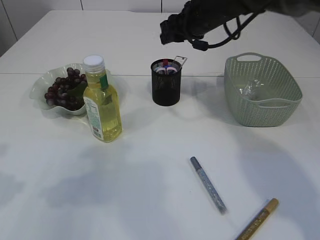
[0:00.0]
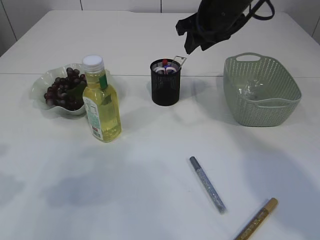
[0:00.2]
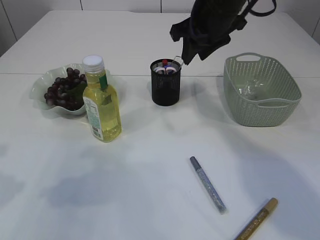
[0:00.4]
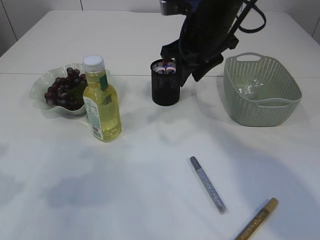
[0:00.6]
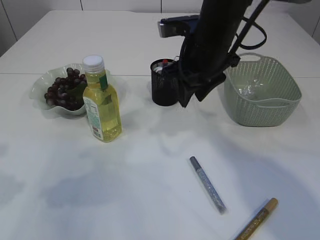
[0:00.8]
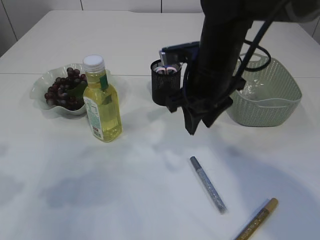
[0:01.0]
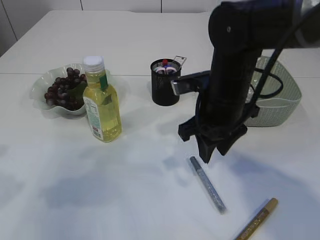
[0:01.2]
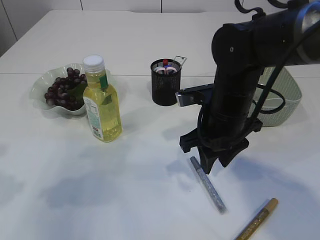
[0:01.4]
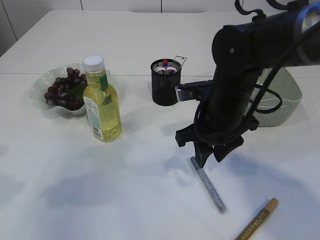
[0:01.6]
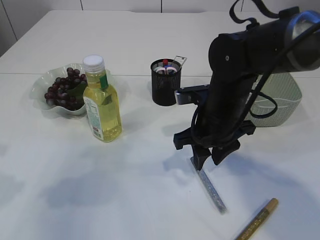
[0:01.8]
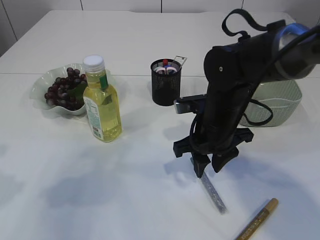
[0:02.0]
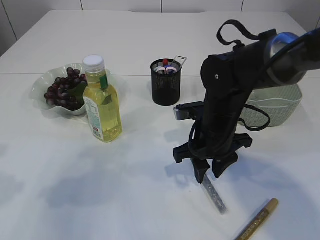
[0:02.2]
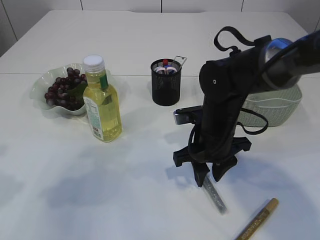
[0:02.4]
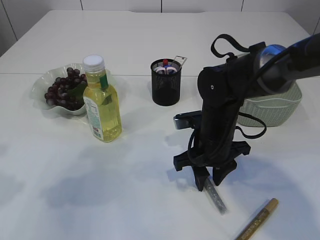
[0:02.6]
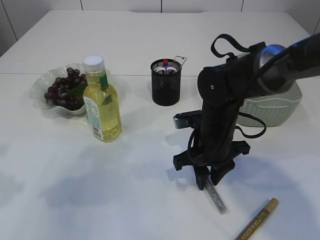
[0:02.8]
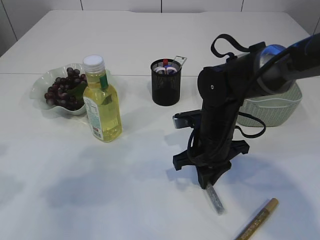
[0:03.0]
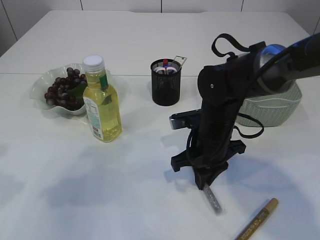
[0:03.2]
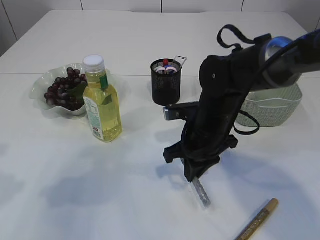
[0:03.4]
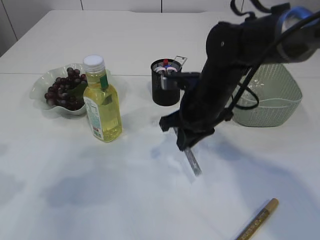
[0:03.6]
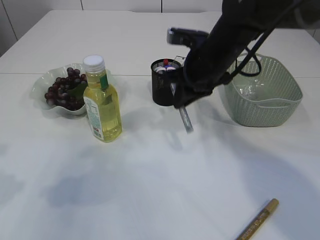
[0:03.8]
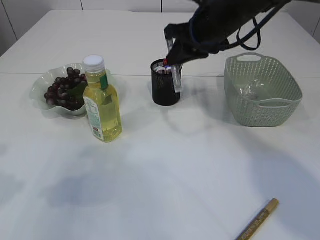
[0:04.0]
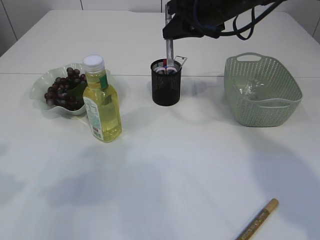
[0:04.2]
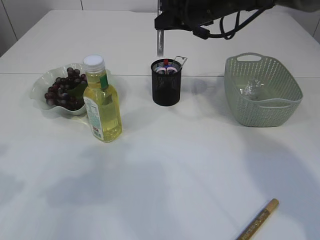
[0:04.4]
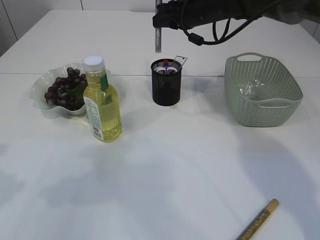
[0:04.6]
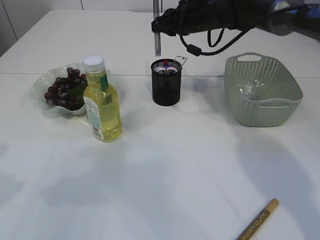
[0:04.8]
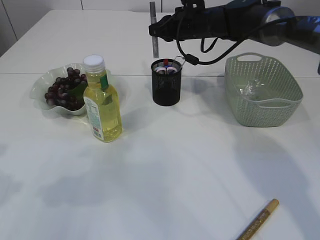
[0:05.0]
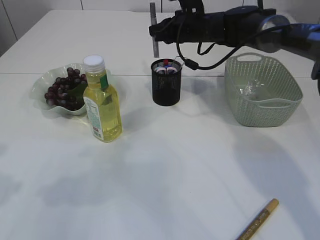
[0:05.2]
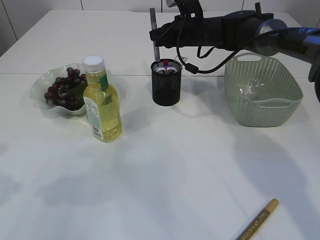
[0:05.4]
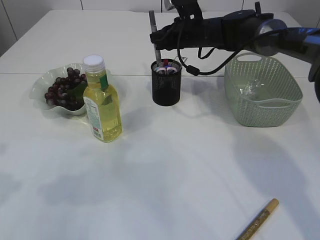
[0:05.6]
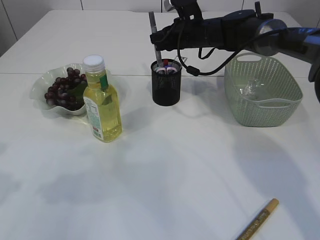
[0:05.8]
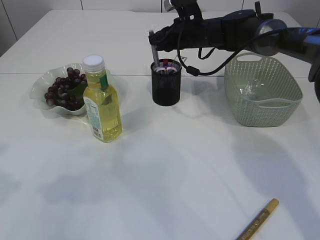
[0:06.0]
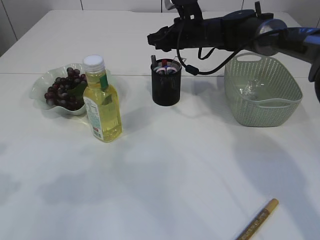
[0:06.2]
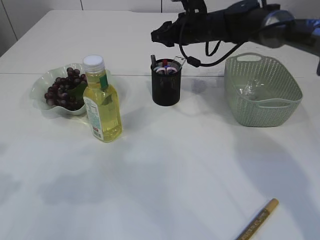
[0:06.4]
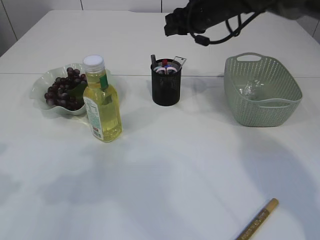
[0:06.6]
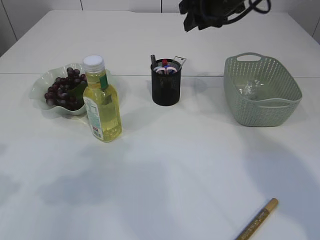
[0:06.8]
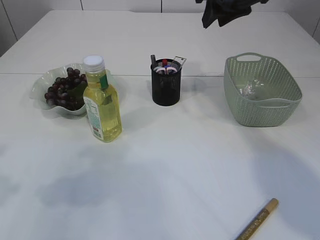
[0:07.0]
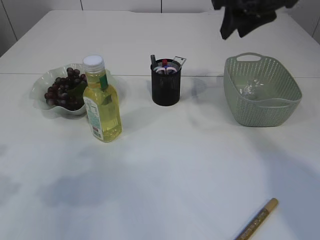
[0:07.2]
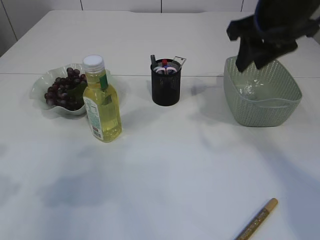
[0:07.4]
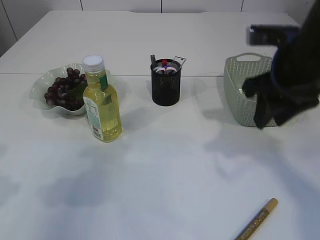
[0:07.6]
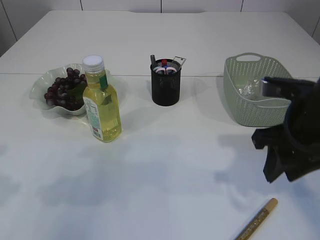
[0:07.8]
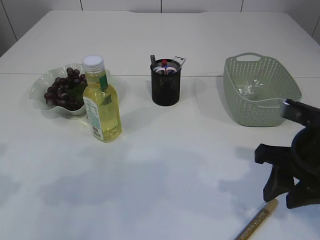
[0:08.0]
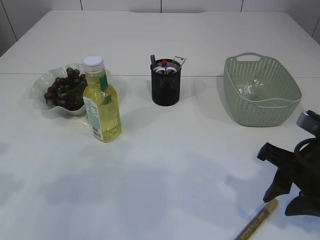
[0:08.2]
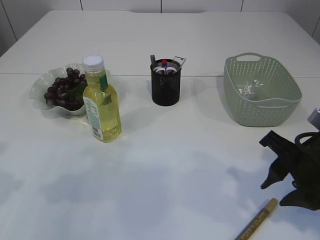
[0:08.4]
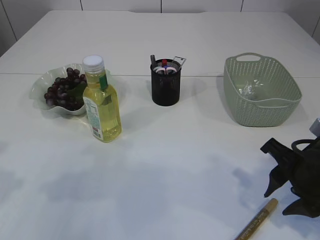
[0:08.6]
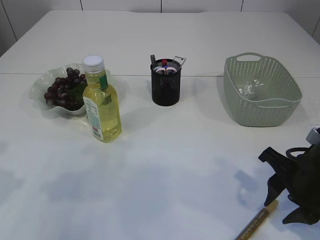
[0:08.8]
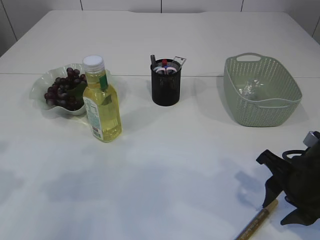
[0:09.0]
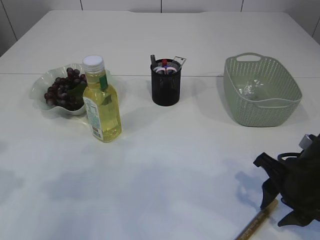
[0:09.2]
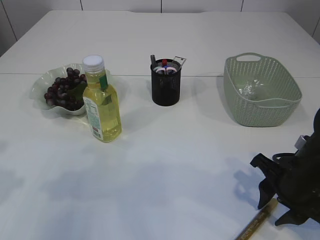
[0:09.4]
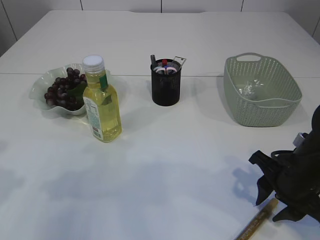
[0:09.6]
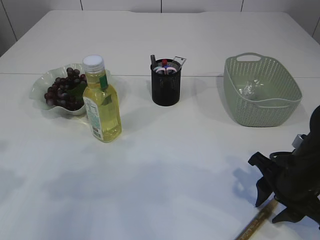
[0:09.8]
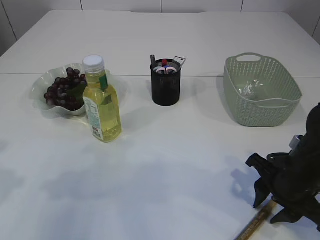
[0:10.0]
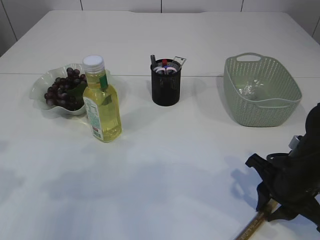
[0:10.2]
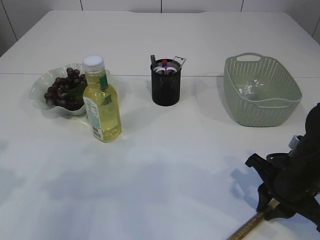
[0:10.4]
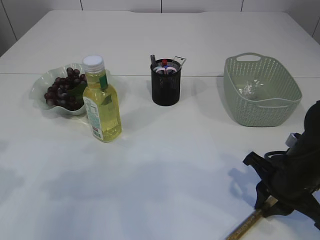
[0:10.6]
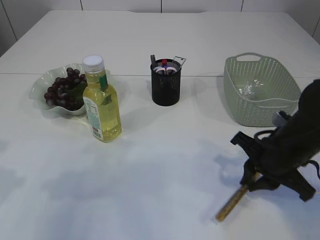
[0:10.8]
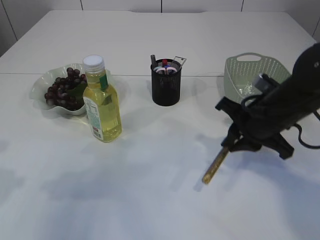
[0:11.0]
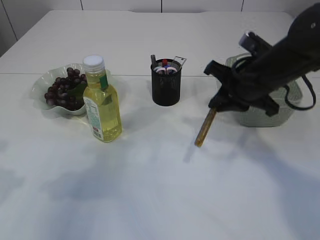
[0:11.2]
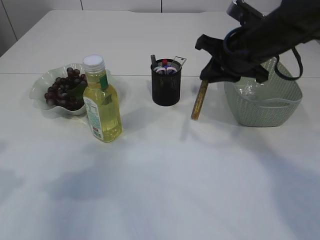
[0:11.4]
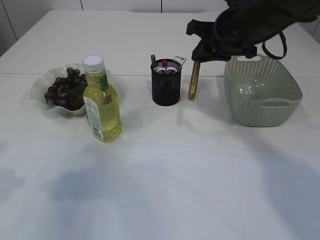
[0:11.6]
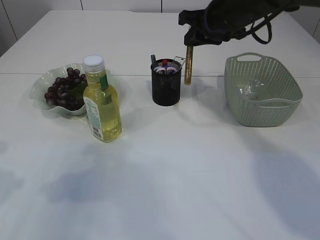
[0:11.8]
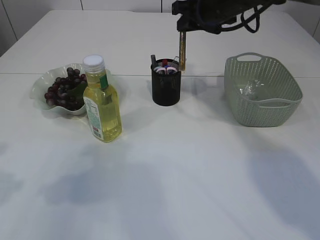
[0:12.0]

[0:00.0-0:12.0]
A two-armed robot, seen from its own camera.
Step, 0:00.0 to 0:03.6: pick up the silver glue.
Step, 0:03.8 to 0:06.6: place the silver glue into the pen holder.
Step, 0:06.8 to 0:11.0: pick up the yellow glue.
0:00.0 to 0:01.6: The right gripper shifts approximately 20 cm backward and downward.
0:01.6 to 0:03.0: The right gripper shifts some 5 cm downward.
0:03.0 to 0:04.4: The right gripper shifts roughly 25 cm upward and forward.
0:04.4 to 0:06.0: The right gripper shifts approximately 10 cm downward and forward.
0:06.0 to 0:07.6: The right gripper is displaced backward by roughly 25 cm.
0:07.6 to 0:09.0: The right gripper heads downward and backward, covering some 15 cm.
0:09.0 to 0:10.4: The grippers move only a little.
0:10.4 to 0:12.0: The right gripper shifts roughly 30 cm forward and upward.

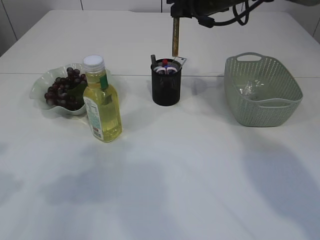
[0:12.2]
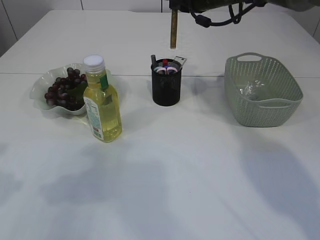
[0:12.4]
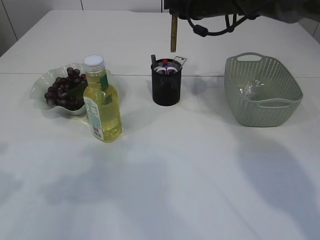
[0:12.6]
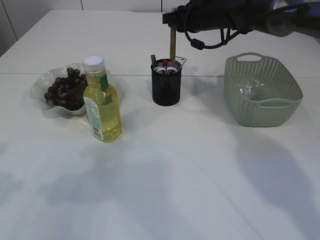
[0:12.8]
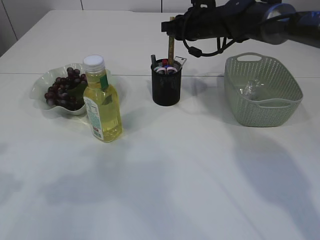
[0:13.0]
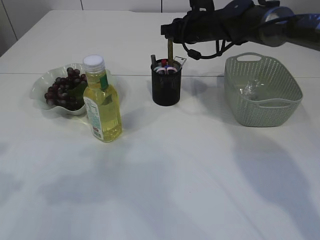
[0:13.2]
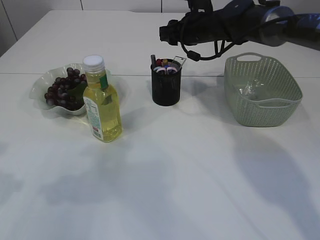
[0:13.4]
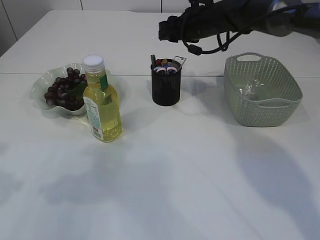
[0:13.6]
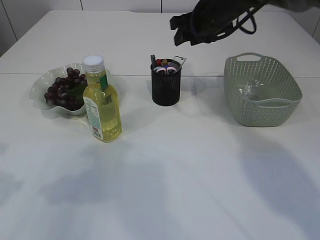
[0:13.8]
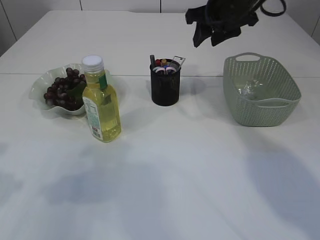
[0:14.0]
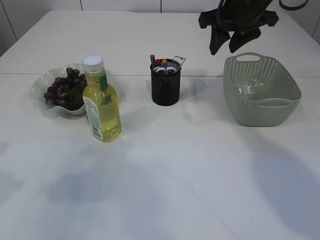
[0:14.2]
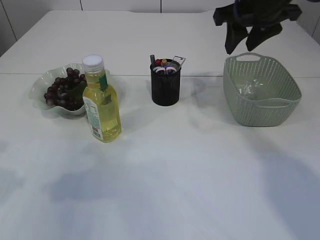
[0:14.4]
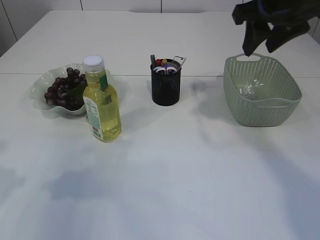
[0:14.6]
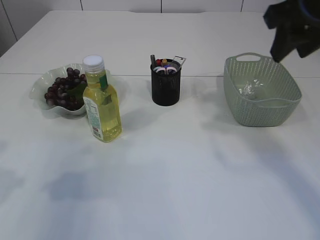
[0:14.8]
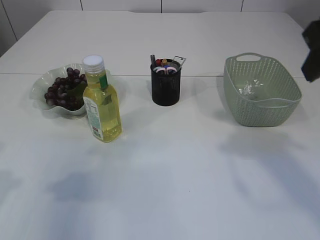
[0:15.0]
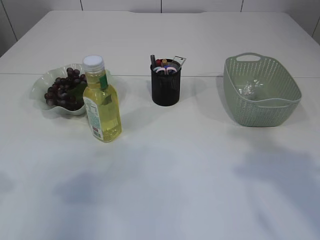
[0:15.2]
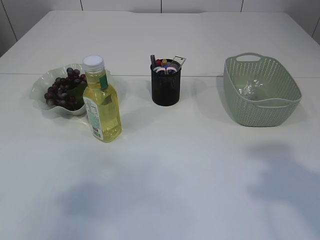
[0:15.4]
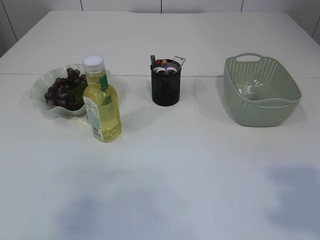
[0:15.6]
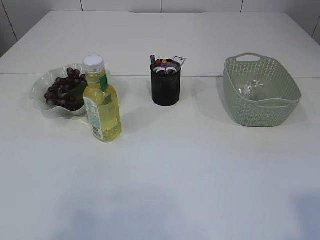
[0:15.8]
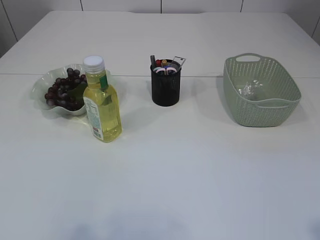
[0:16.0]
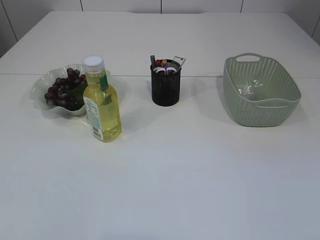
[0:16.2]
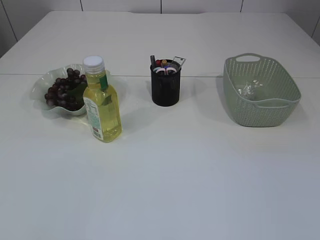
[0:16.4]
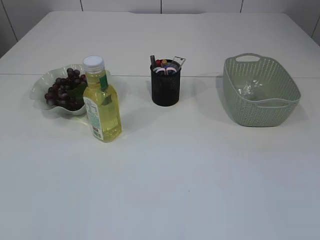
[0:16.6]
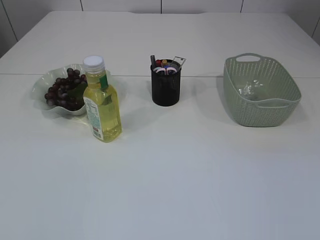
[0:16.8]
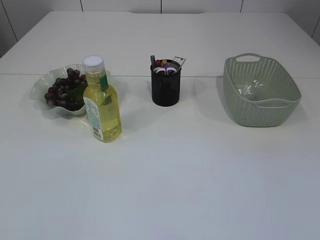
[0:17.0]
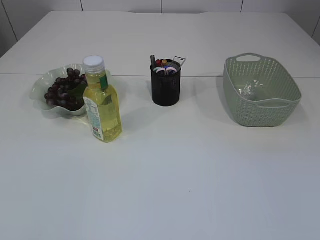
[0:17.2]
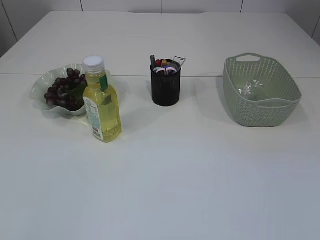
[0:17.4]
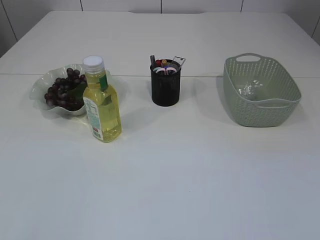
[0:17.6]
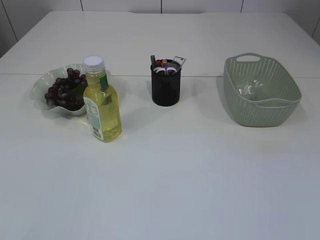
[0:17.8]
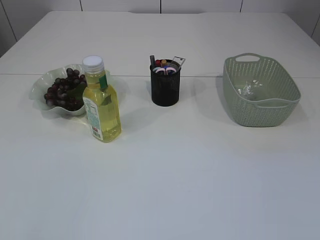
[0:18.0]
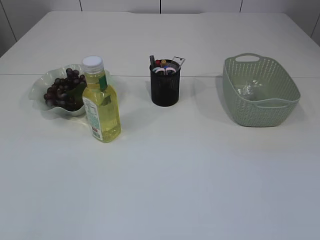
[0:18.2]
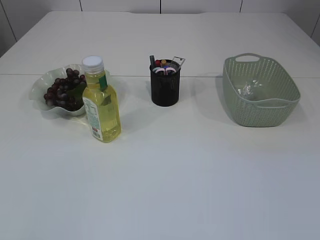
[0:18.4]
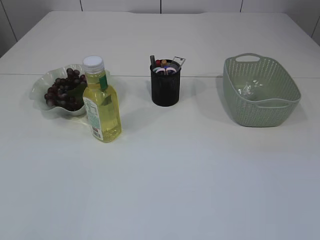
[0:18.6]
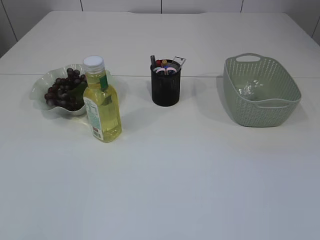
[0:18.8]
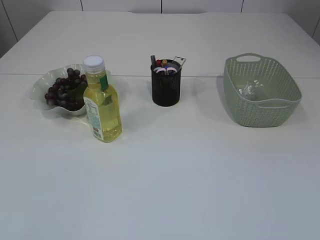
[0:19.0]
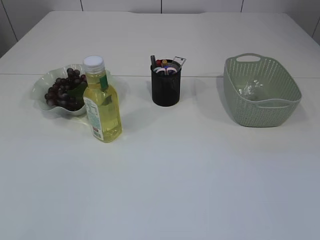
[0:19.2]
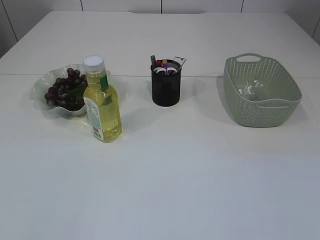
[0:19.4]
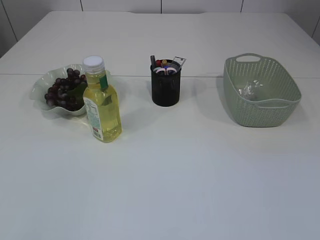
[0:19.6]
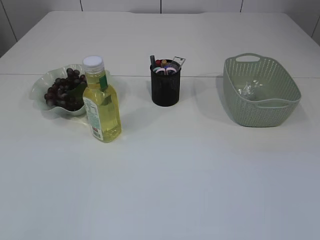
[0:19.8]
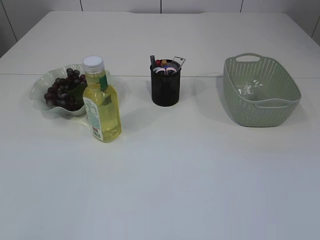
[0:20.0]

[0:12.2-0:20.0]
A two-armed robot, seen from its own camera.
Step, 0:12.2 to 0:13.4: place the yellow glue into the pen holder.
0:12.2 to 0:13.8: The right gripper opens up.
0:13.8 to 0:15.4: The left gripper heads upward and backward, covering some 10 cm; the right gripper shifts some 35 cm backward.
0:15.4 to 0:16.8: The left gripper shifts roughly 20 cm backward.
0:18.4 to 0:20.0: Both grippers stay about where they are.
